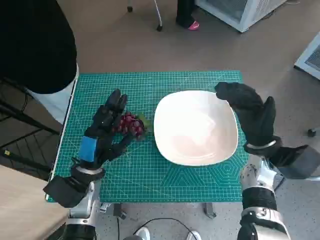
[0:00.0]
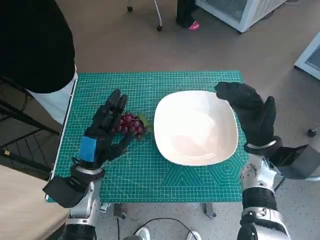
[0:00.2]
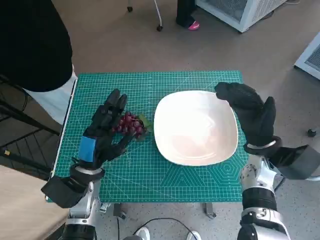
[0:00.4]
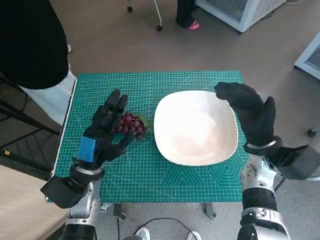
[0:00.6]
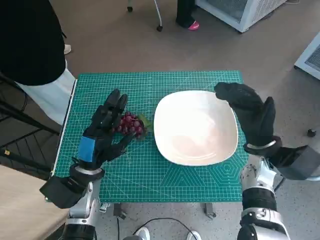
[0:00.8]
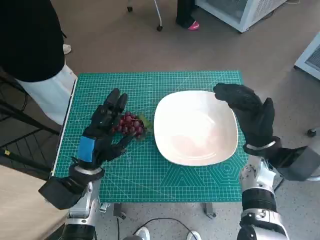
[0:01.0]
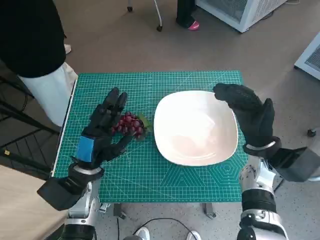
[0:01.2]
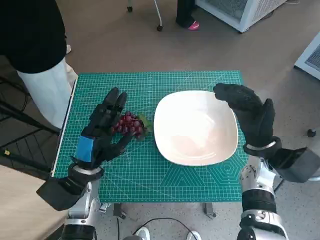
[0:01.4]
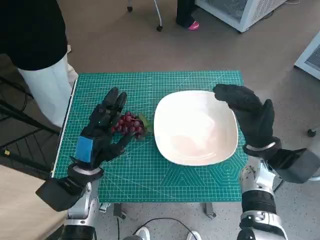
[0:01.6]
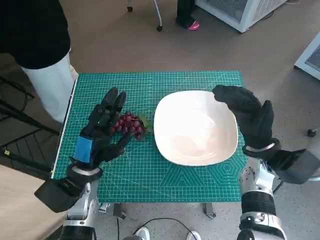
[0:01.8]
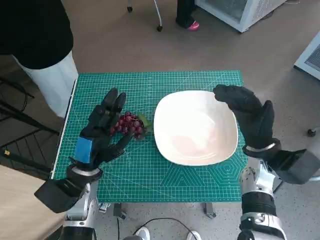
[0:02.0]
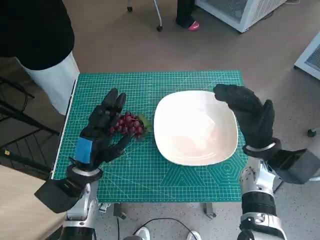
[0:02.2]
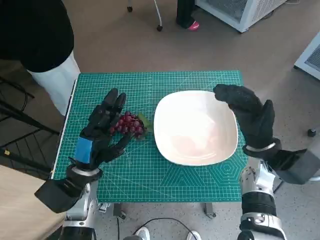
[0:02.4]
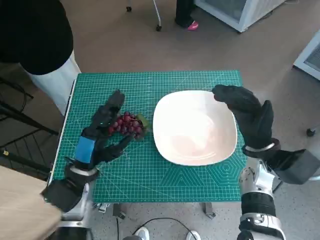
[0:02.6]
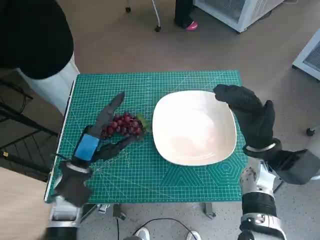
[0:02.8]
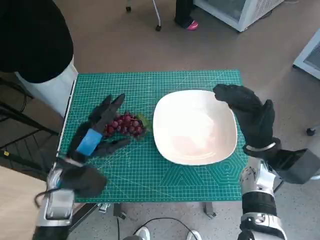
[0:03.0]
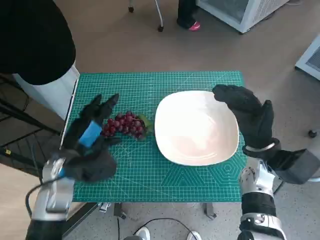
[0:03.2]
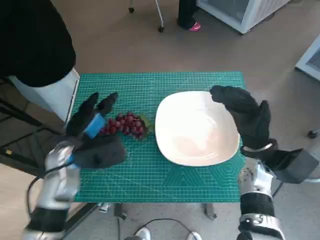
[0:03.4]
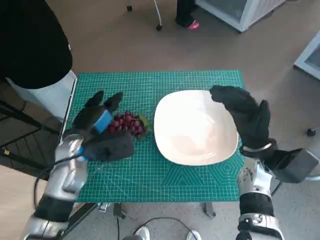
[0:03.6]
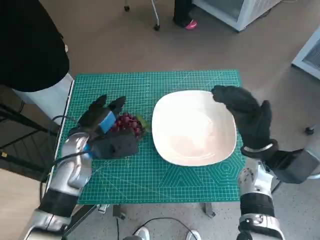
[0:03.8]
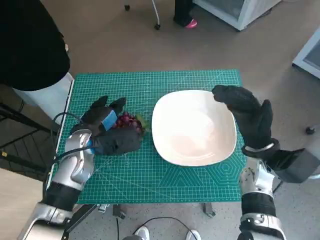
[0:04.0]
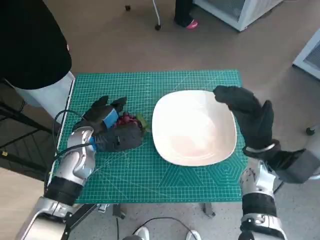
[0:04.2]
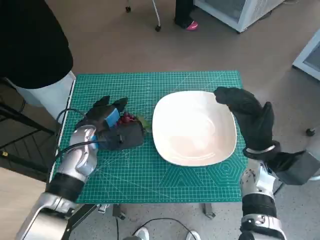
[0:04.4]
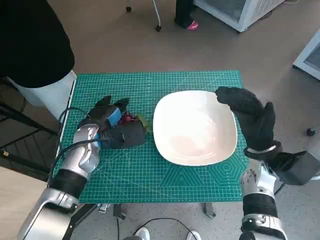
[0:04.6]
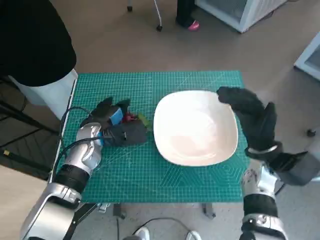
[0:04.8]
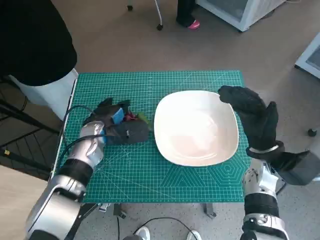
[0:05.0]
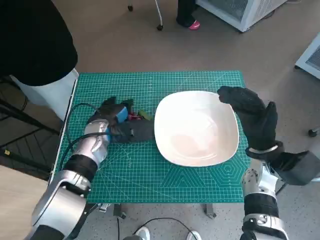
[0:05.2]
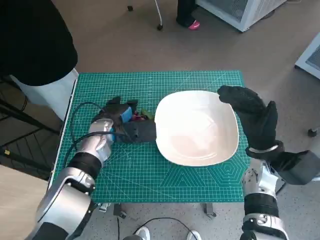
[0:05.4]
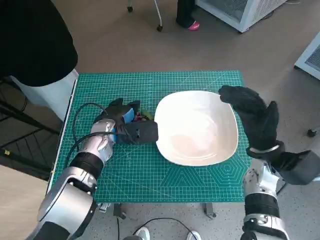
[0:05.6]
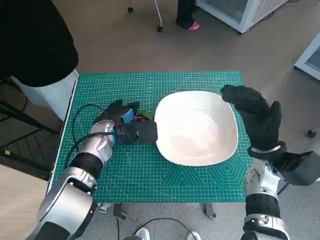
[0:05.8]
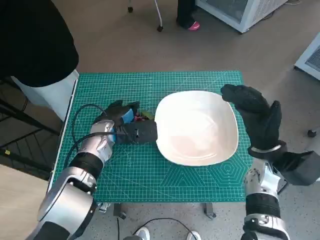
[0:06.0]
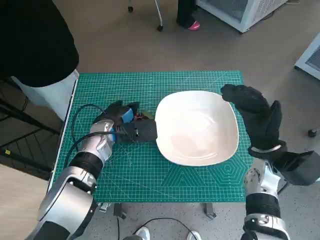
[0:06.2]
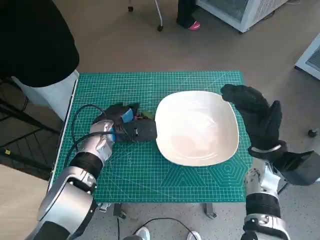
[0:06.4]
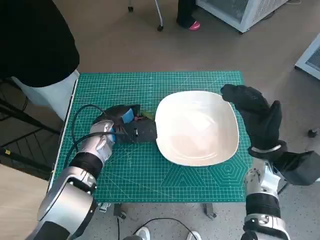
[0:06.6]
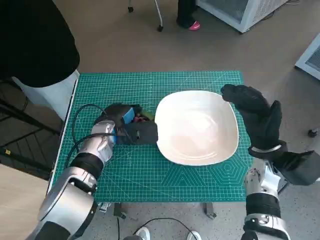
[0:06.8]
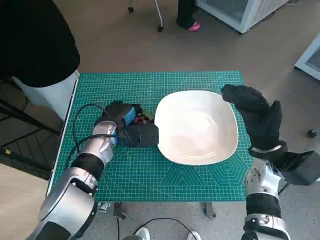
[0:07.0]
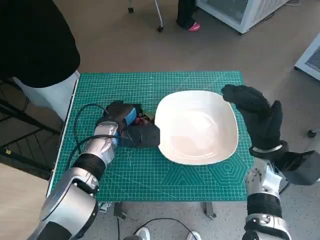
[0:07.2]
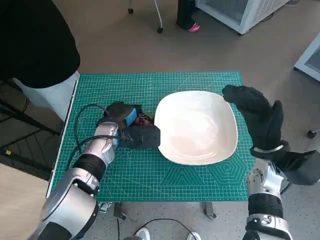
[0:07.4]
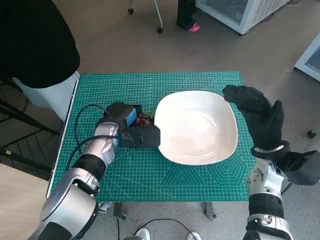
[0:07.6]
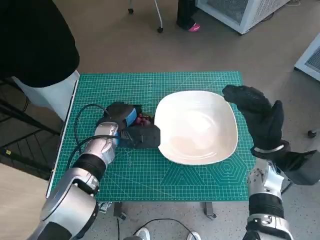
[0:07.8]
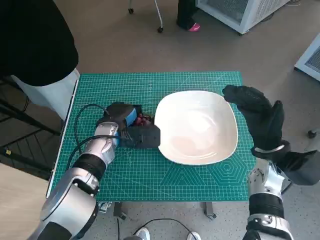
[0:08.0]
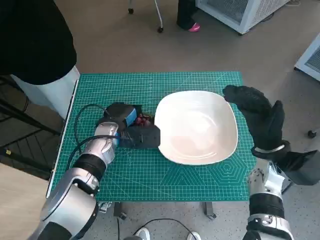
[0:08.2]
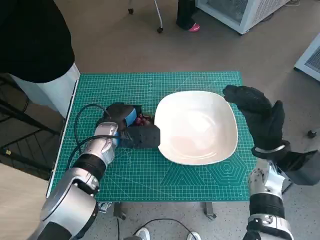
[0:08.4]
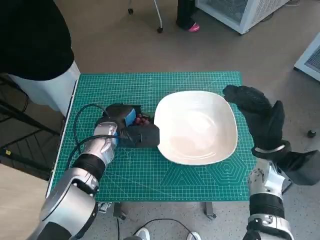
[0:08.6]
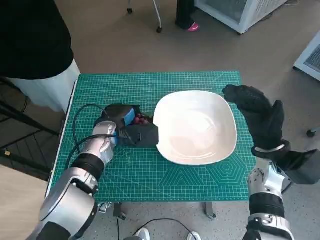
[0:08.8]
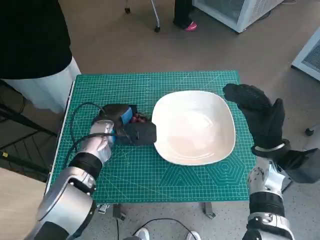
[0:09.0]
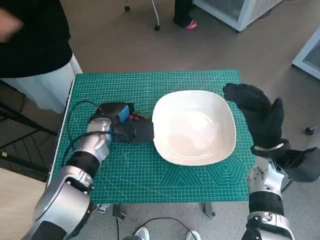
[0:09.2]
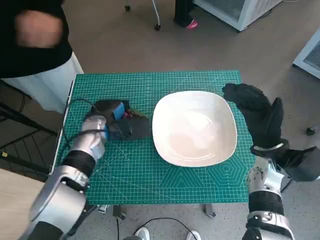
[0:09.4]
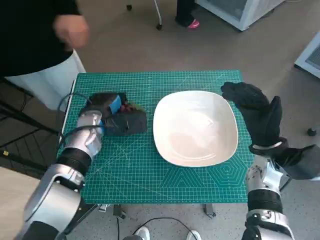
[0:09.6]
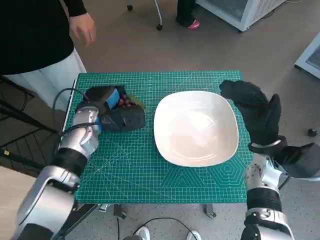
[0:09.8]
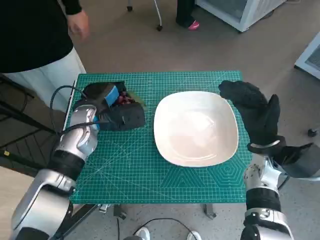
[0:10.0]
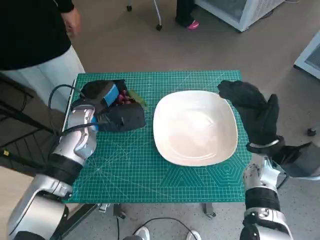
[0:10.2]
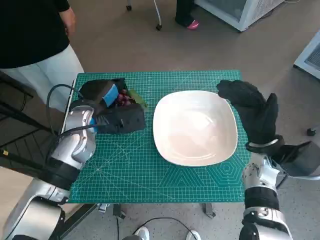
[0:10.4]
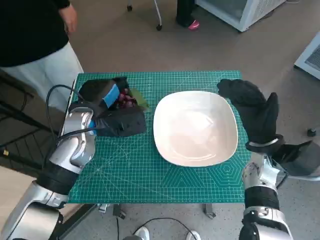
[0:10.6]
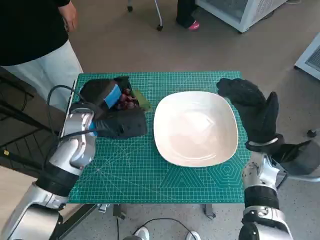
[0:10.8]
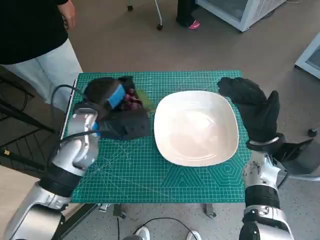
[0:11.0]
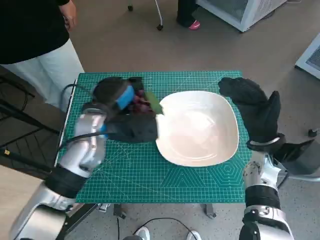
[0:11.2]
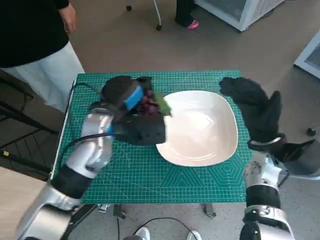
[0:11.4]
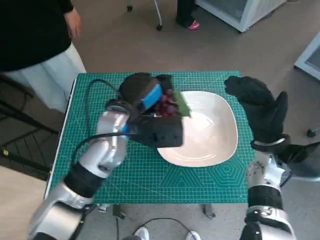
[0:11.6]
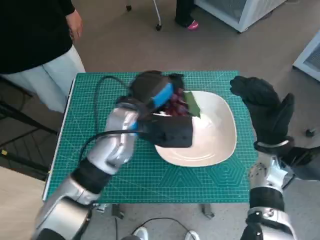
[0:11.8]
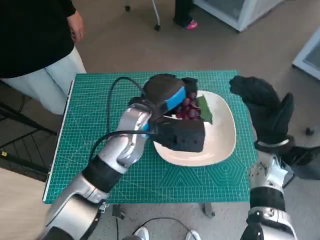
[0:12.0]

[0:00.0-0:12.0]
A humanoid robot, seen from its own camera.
Task of the whole recording: Pick up the grapes and put them on the plate.
Step, 0:00.0 to 0:08.0: Grasp the grapes with left hand.
0:03.0 to 0:04.4: The left hand shifts approximately 10 cm forward.
0:04.4 to 0:07.6: The hands make only small movements.
0:07.6 to 0:09.0: Both hands stay about where they are.
0:09.0 to 0:10.4: The left hand travels upward by roughly 5 cm.
0:10.4 to 0:12.0: The left hand is displaced to the right by some 10 cm.

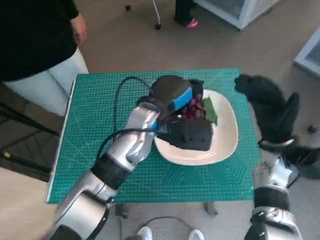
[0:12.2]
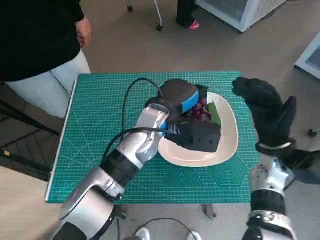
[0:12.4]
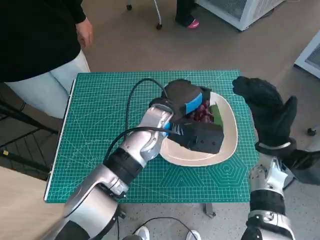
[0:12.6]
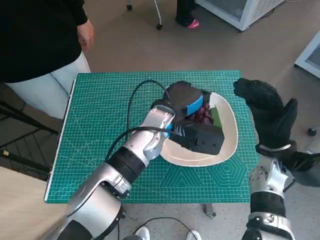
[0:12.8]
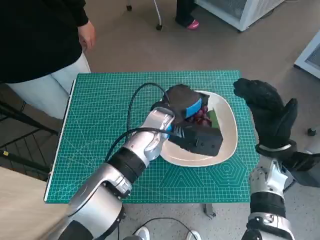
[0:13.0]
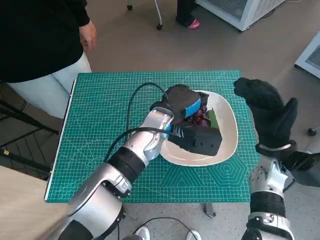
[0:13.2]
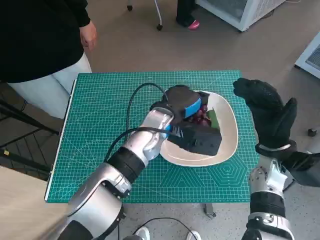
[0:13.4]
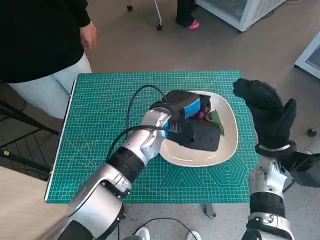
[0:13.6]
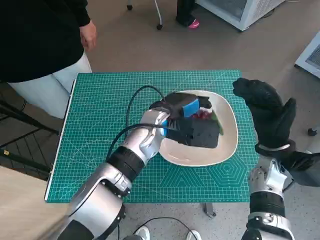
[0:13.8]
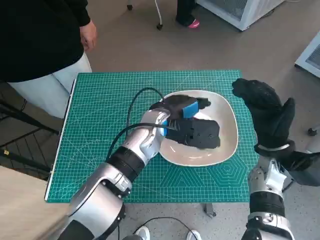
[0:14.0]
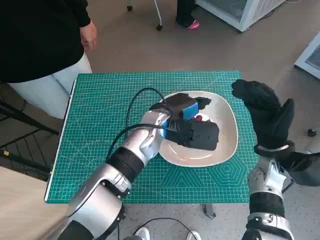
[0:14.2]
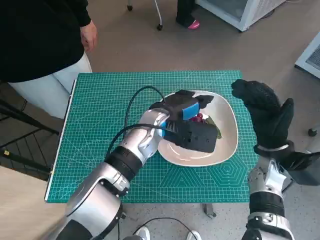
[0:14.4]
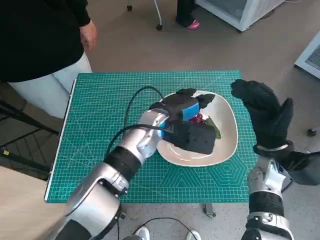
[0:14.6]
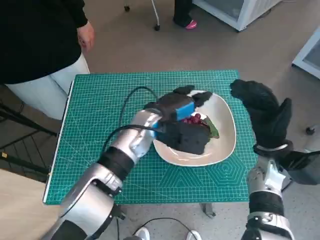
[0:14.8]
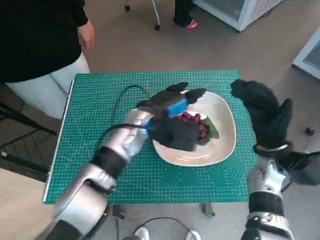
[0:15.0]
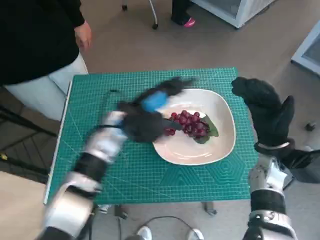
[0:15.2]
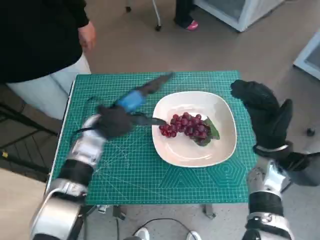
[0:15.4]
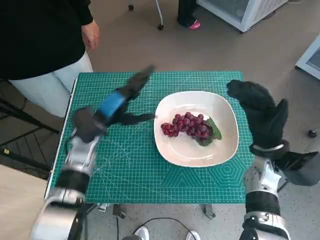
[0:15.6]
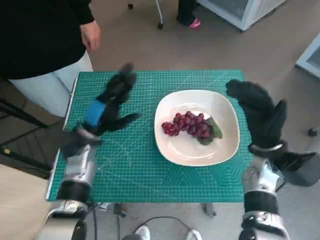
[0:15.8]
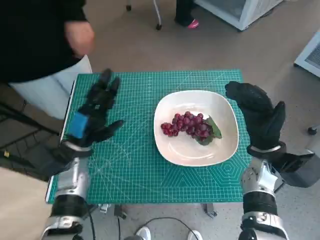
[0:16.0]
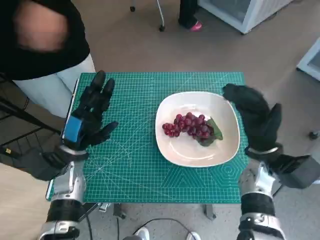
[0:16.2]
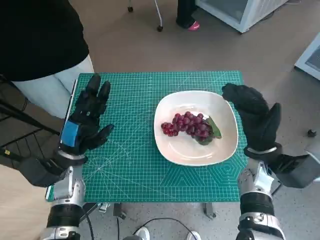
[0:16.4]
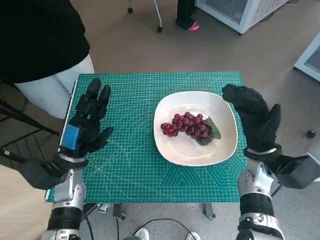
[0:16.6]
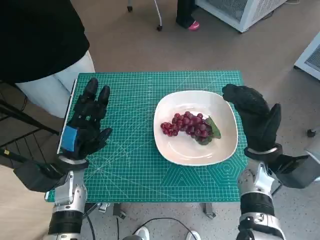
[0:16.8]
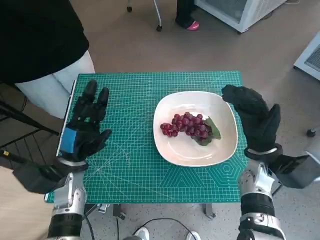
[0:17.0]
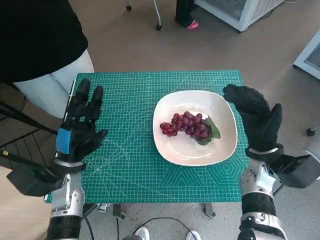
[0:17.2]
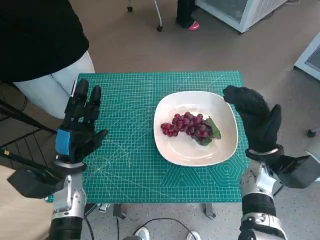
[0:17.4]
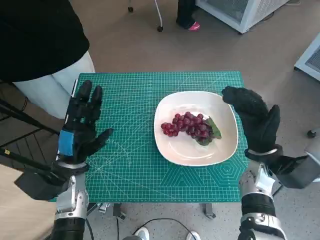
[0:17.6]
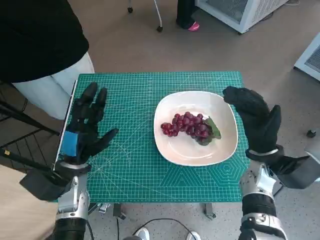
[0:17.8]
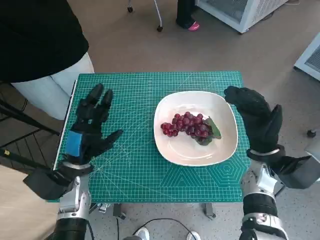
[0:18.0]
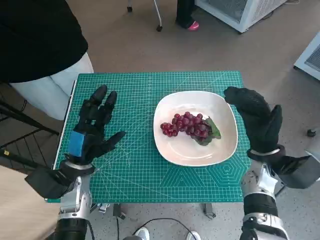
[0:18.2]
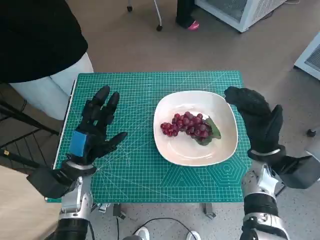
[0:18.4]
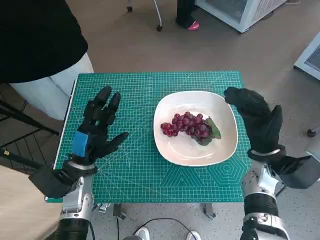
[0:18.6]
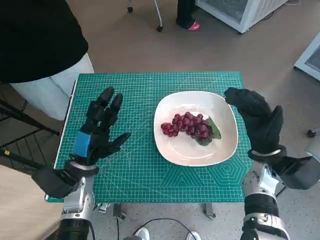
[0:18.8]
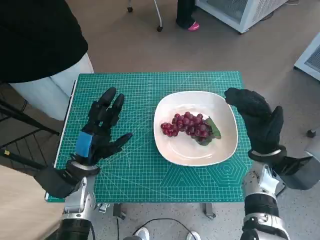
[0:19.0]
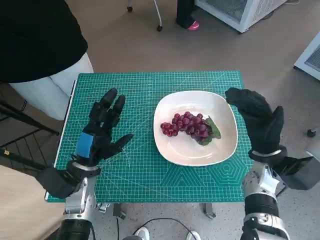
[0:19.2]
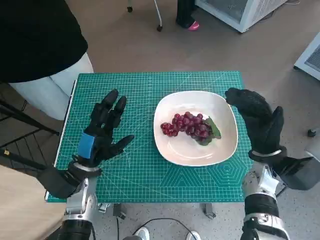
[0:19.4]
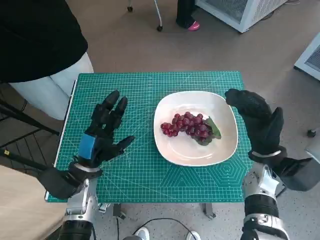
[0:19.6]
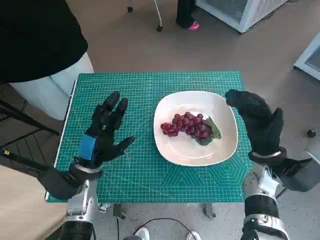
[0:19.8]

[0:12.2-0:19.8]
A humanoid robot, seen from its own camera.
Task of the whole recording: Pick up the grapes and put them on the plate.
Step, 0:12.2 to 0:14.6: Place the grapes in the plate with left hand.
0:13.8 to 0:15.2: The left hand moves to the left, roughly 5 cm.
0:15.2 to 0:16.8: The left hand moves to the left, backward and downward, about 15 cm.
0:16.8 to 0:19.8: The hands make only small movements.

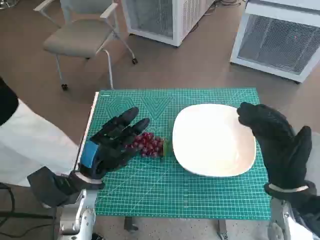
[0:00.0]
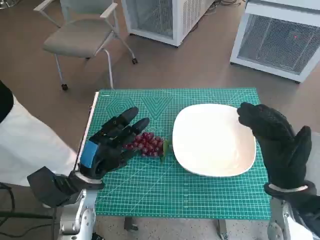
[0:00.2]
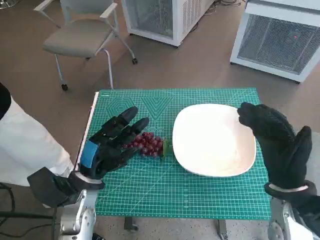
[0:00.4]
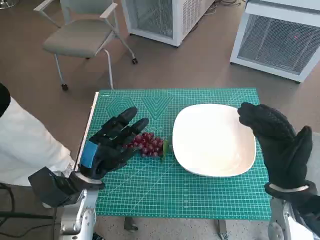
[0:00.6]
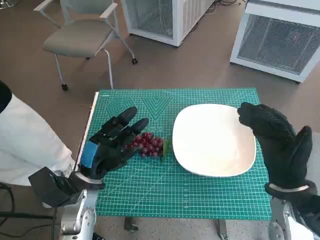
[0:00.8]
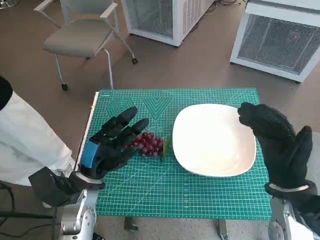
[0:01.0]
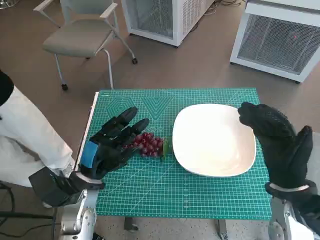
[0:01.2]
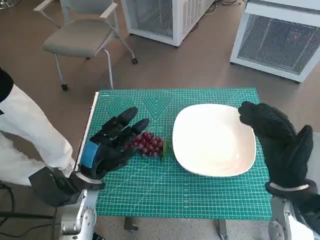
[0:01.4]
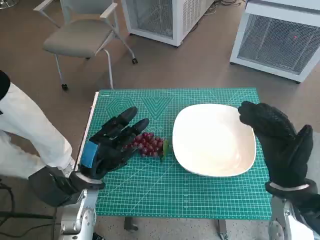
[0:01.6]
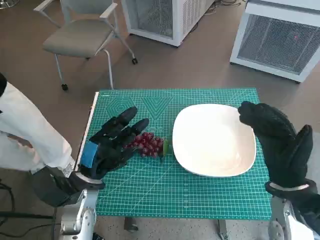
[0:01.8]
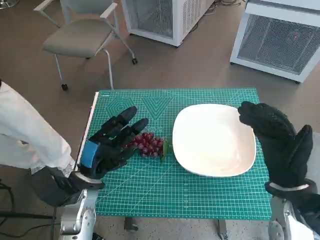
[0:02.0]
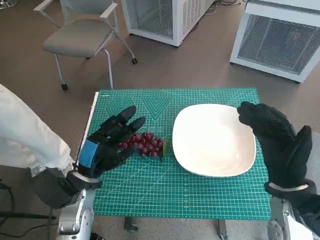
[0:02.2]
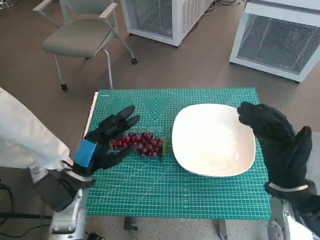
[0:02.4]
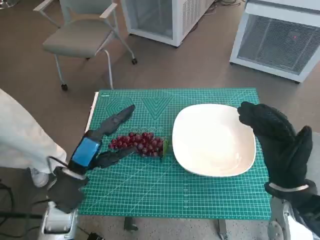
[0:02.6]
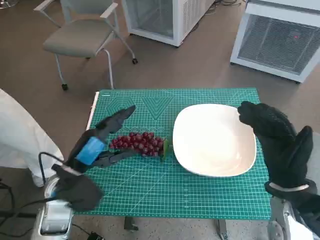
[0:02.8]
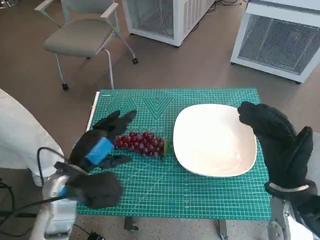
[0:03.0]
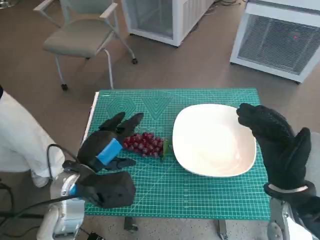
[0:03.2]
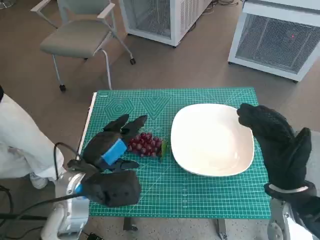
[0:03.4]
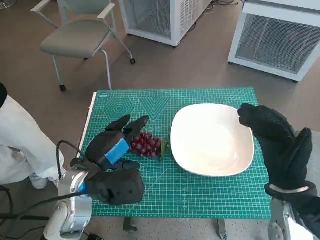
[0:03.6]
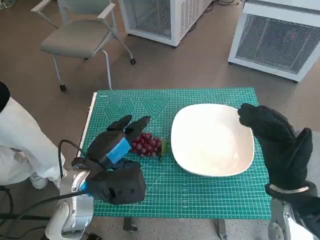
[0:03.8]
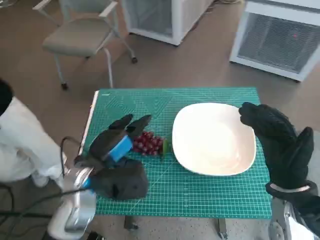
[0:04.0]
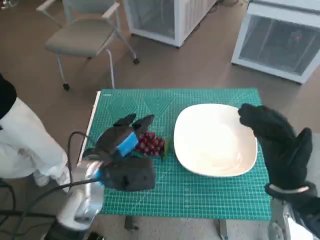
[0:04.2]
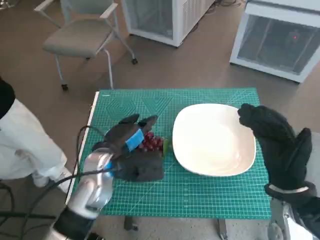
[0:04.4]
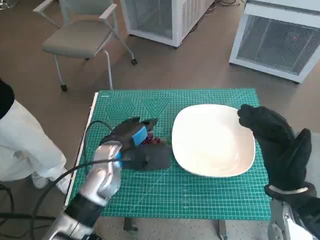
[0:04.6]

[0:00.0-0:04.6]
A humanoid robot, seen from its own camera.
Task of the whole recording: Pick up the grapes and put them on the plate.
0:01.6 to 0:03.0: The left hand moves upward, roughly 5 cm.
0:03.0 to 0:04.6: The left hand moves forward and to the right, roughly 10 cm.
